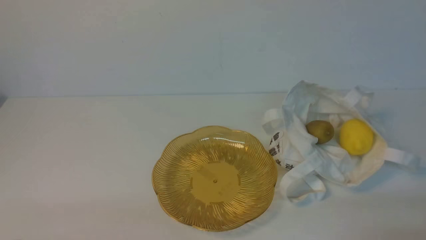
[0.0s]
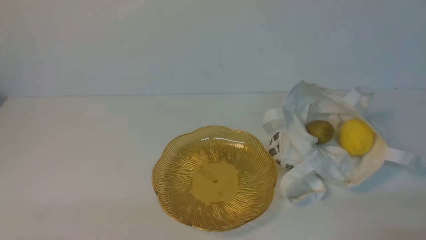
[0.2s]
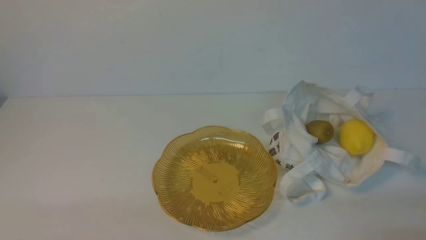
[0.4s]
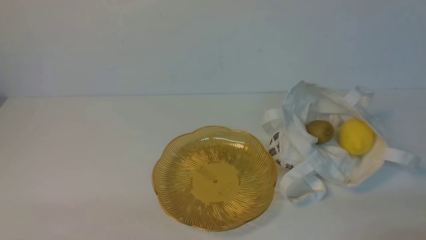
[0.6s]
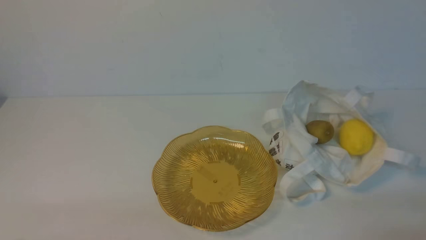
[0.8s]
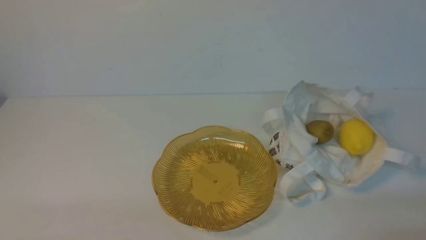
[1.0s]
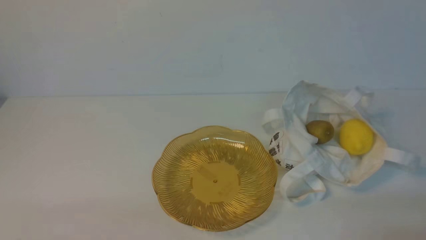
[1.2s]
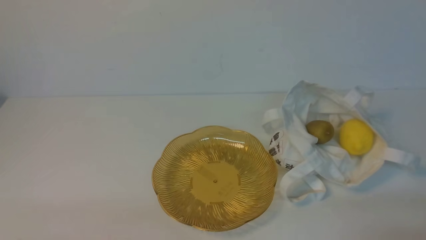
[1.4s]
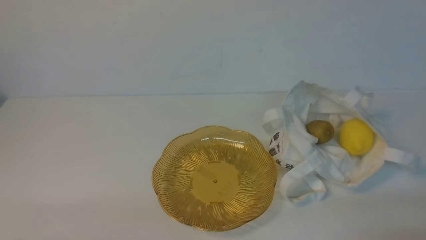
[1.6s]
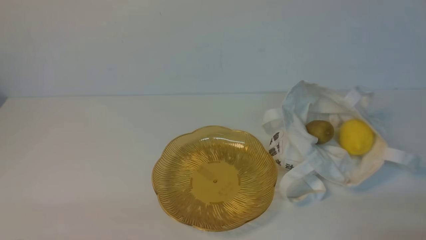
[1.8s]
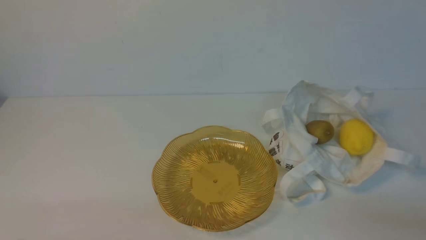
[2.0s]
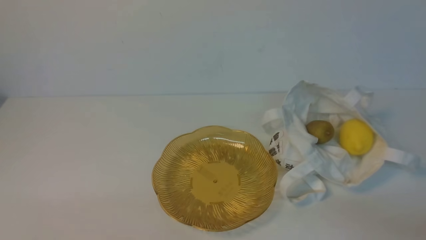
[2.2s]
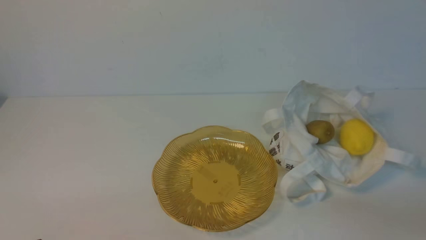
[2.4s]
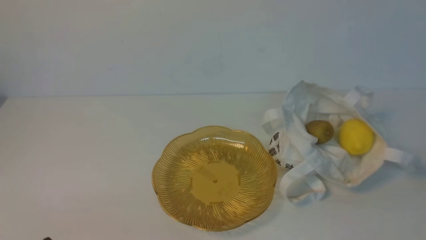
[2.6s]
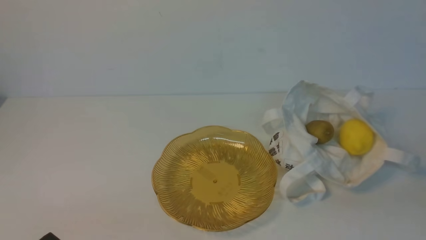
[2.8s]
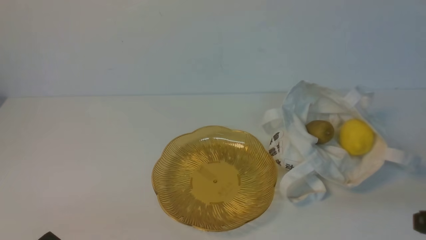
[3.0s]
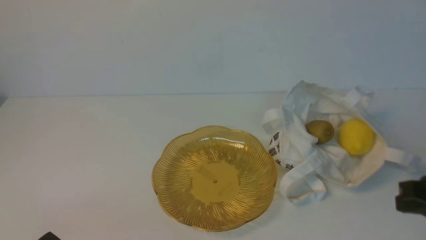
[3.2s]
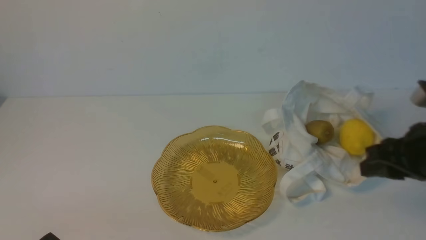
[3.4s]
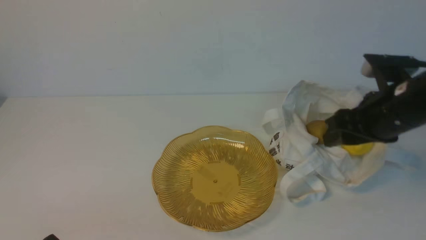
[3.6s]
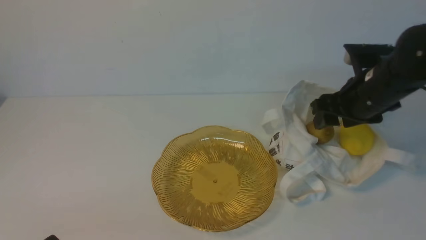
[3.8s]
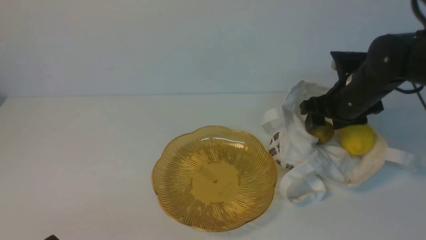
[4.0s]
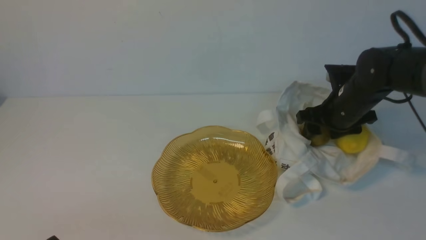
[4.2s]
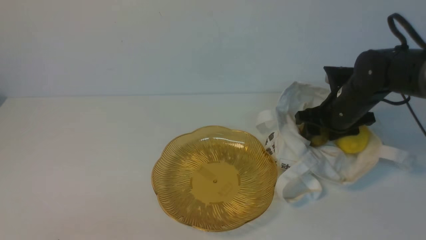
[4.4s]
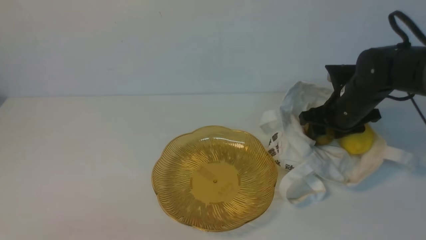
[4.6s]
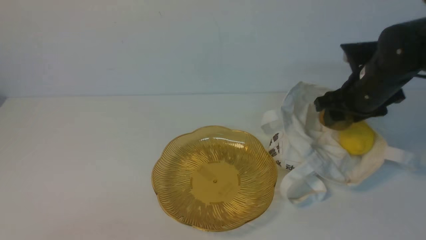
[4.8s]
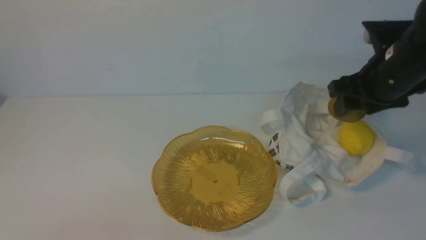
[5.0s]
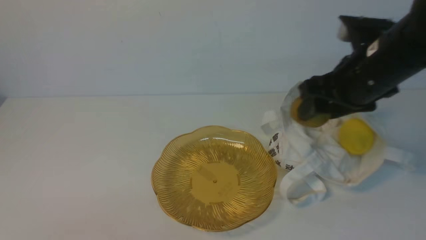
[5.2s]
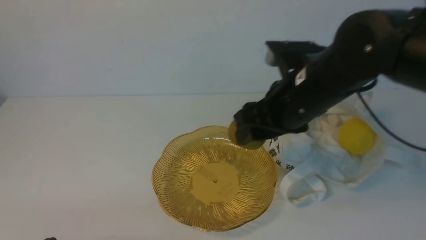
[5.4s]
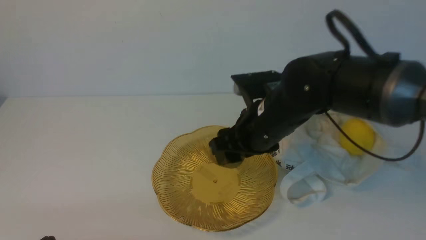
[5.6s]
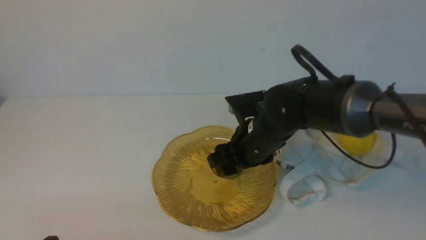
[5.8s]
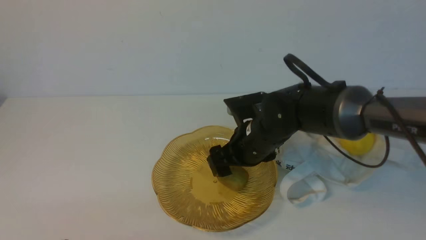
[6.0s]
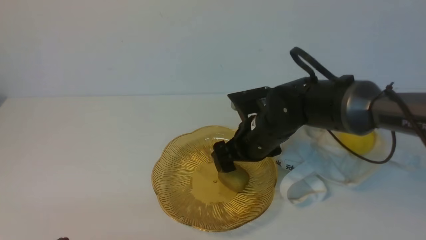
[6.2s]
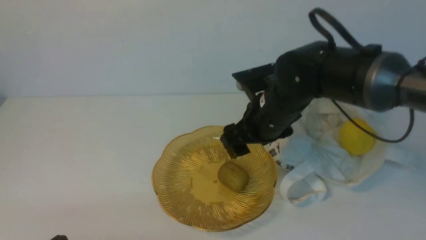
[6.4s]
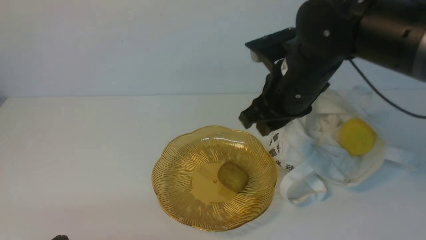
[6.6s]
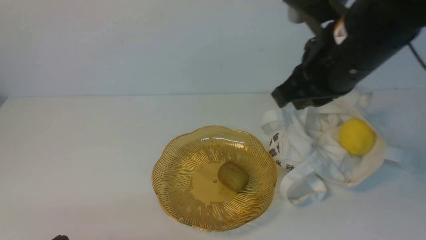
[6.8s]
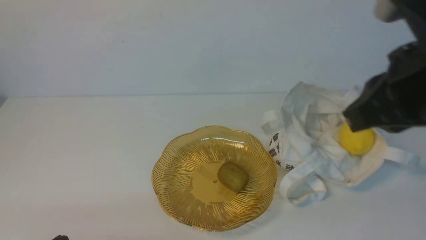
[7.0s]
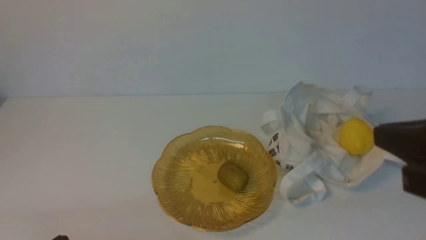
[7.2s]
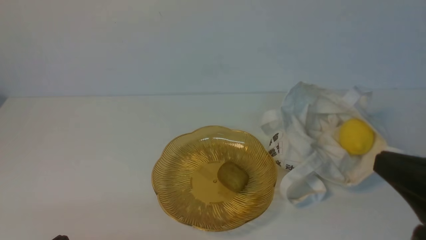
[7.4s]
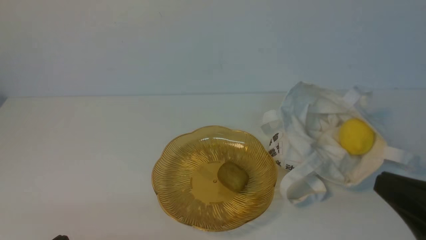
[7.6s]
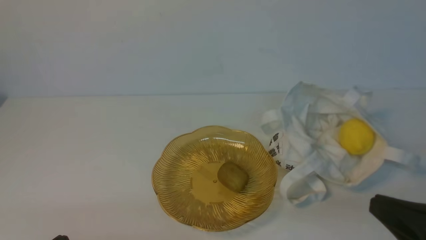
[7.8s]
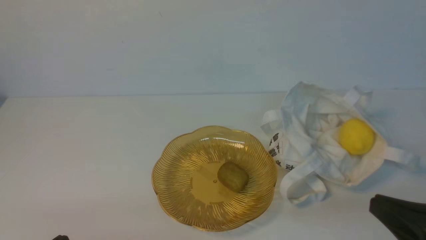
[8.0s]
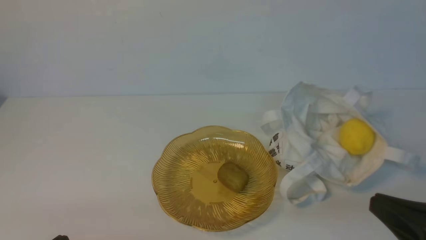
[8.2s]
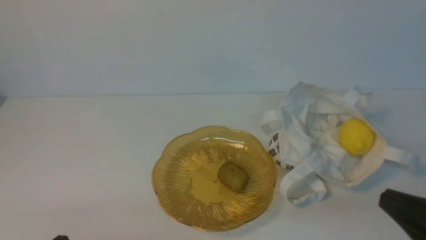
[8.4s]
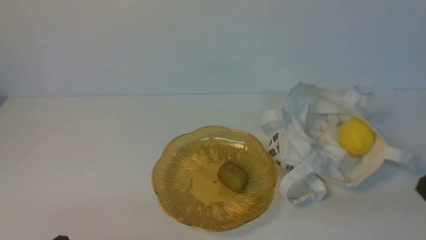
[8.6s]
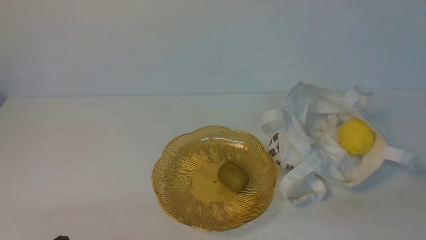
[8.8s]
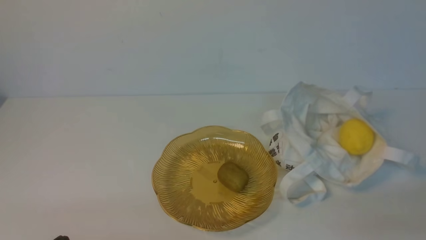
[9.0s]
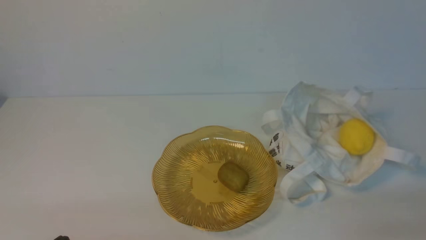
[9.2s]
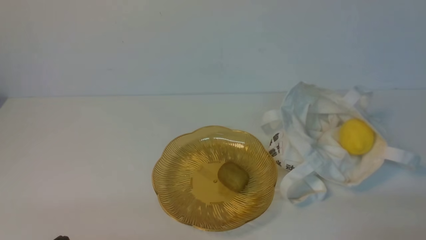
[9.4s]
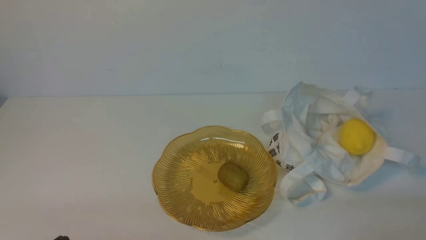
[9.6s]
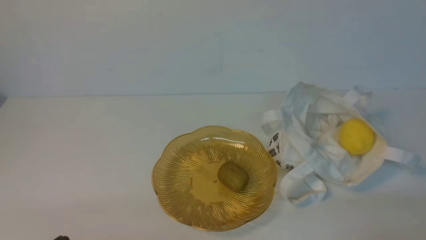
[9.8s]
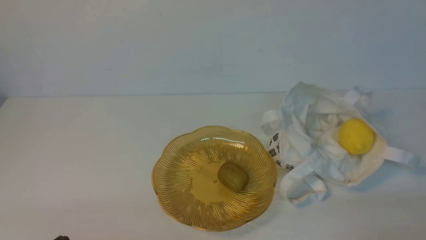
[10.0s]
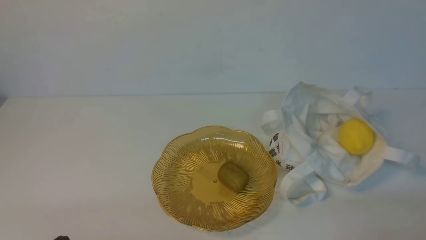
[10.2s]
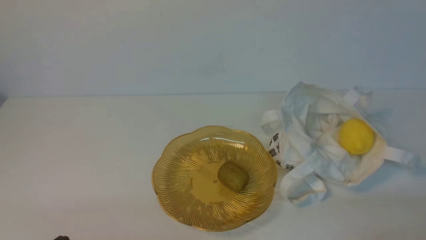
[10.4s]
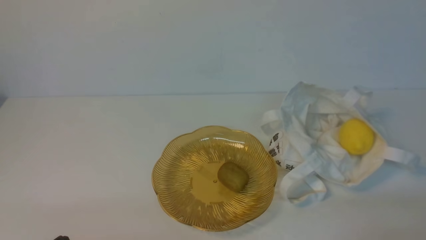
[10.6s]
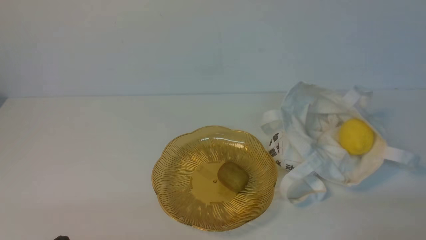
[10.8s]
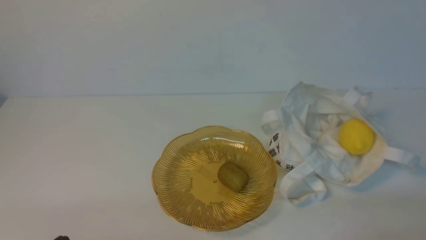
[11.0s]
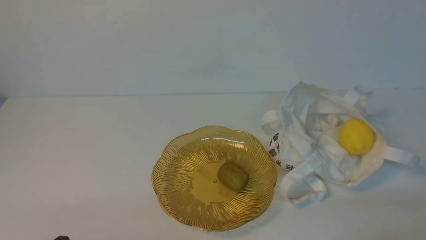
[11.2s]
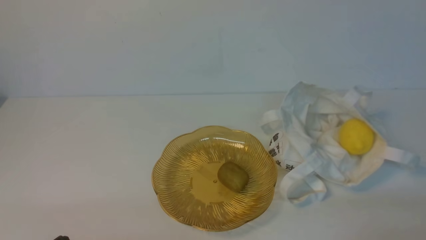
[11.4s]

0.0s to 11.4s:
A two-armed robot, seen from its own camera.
Step, 0.0s to 4.4s: use the right arm to grab a kiwi from the bag.
Step, 4.6s to 6.0s: use the right arm to put the kiwi into the empty plate on the left.
2.8s to 4.2s: The right gripper shifts roughly 30 cm forward, and opens its fingers.
4.2s to 5.6s: The right gripper heads to the left, backward and upward, covering some 15 cm.
5.6s to 7.2s: The right gripper travels backward, to the right and upward by some 20 cm, and closes up.
7.2s to 8.6s: The right gripper moves downward, backward and to the right, some 15 cm.
10.0s to 11.4s: Neither gripper changes place.

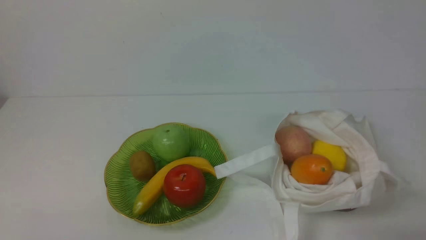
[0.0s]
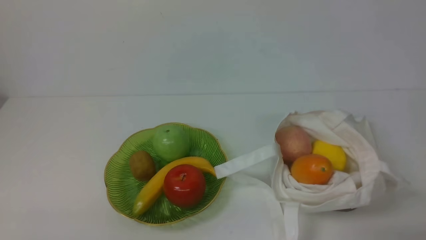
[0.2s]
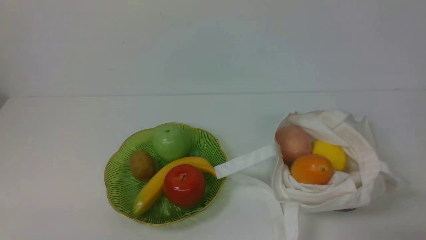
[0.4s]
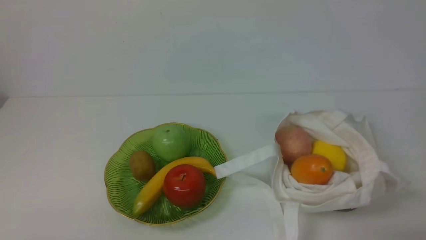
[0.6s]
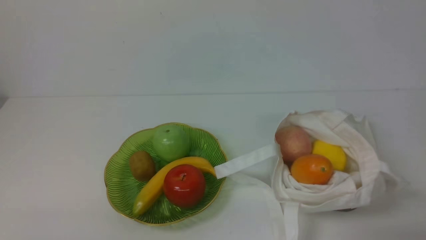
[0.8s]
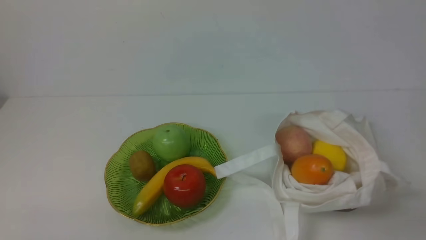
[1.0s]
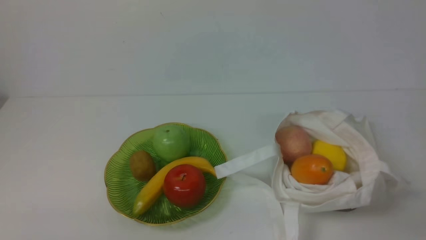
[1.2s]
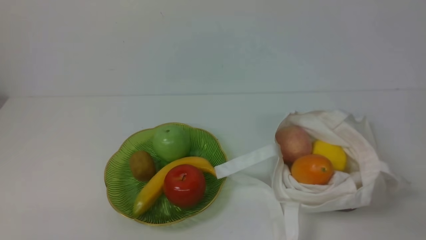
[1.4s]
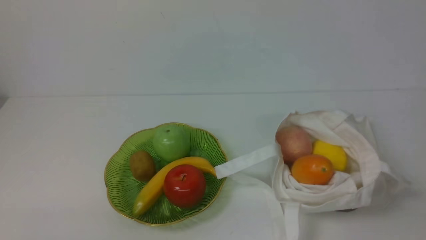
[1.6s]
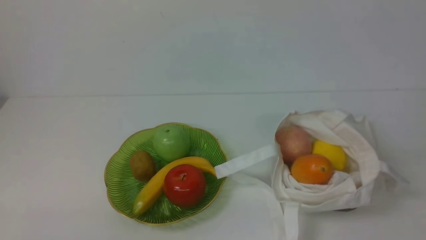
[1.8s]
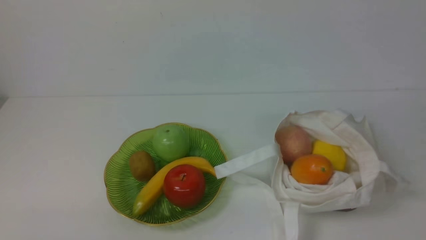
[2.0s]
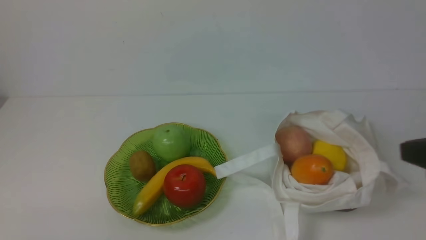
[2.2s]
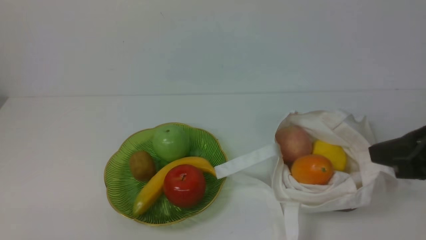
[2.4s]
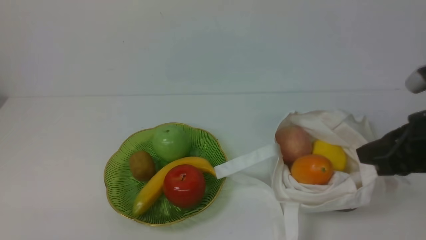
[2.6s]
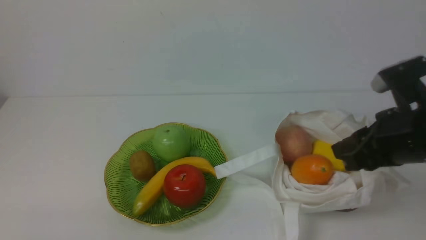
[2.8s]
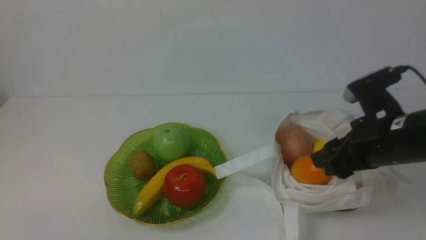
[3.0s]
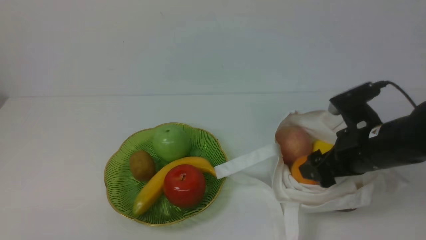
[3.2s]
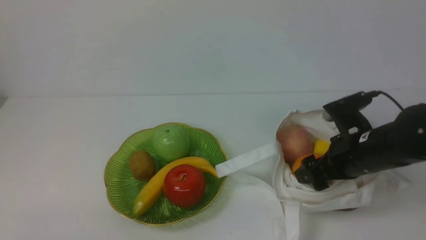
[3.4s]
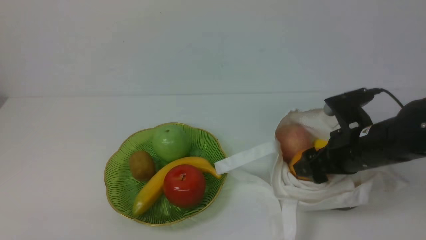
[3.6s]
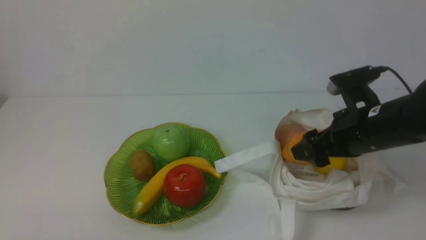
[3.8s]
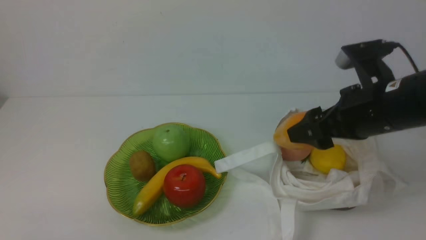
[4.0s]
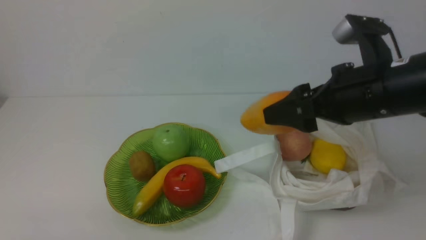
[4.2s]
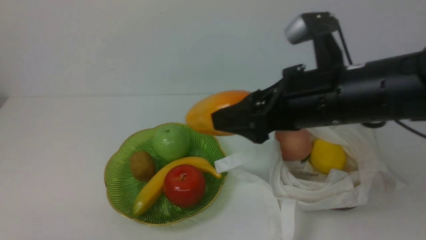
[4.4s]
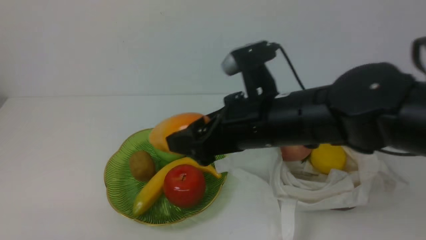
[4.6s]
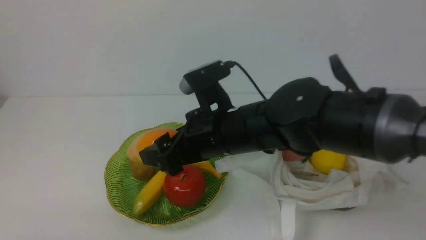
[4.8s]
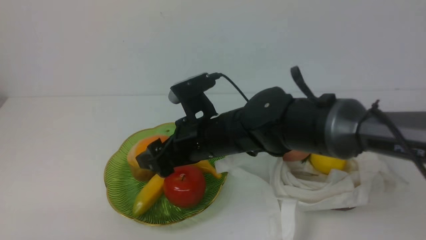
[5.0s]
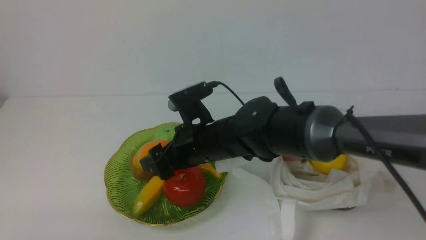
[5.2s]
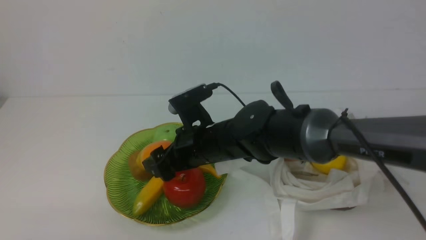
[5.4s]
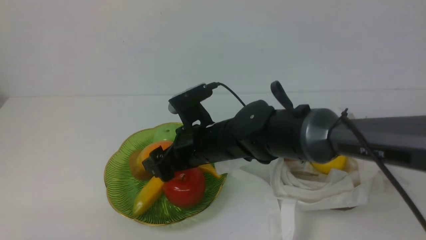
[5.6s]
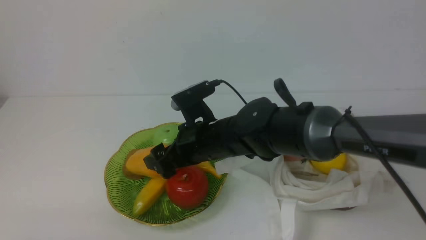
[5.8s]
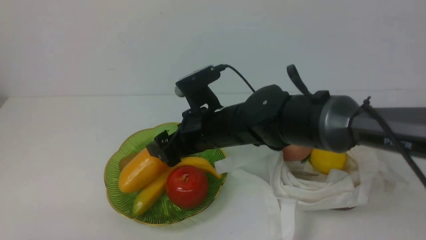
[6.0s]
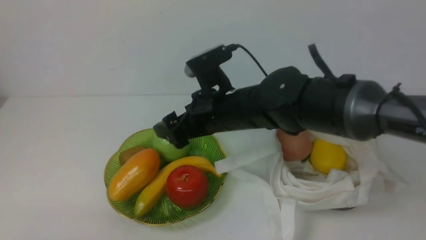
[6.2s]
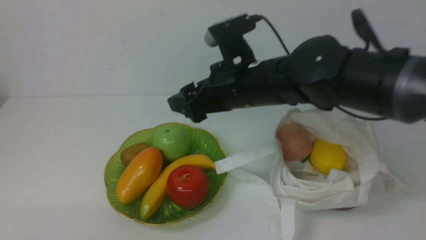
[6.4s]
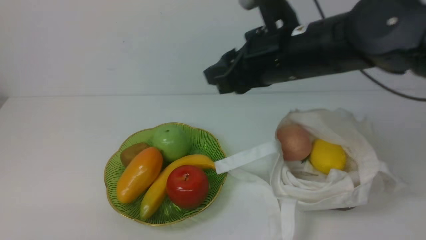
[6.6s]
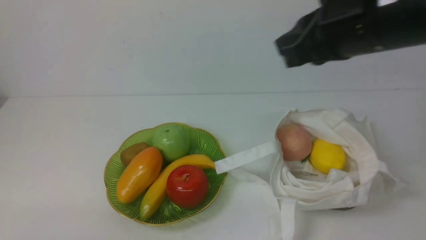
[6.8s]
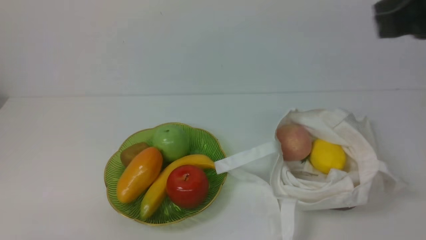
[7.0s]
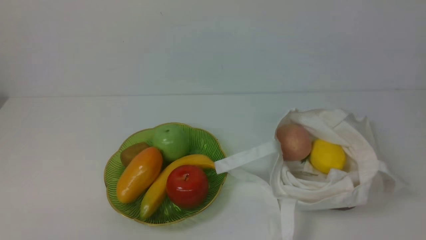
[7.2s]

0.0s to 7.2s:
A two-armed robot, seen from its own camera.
Step, 0.0s to 3.6s: use the right arm to grab a mango from the bag.
Step, 3.8s to 6.0s: use the right arm to put the mango into the empty plate on the left.
1.4s to 2.8s: The right gripper goes roughly 20 cm forward and to the left, and opens its fingers.
2.8s to 4.4s: The right gripper travels to the left by approximately 10 cm, and opens up.
4.4s to 5.8s: The right gripper moves to the left, downward and forward, about 15 cm.
5.8s to 7.2s: The right gripper shifts roughly 40 cm to the right, upward and backward, and closes.
